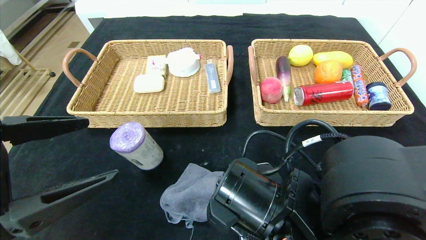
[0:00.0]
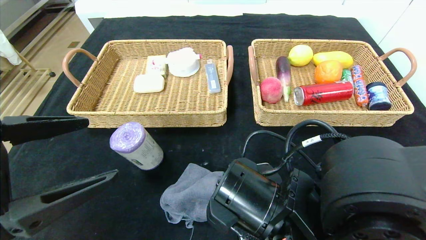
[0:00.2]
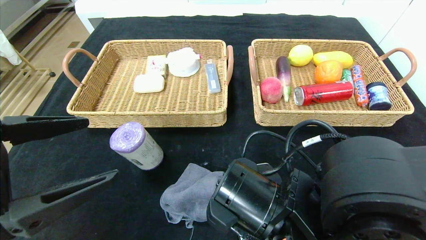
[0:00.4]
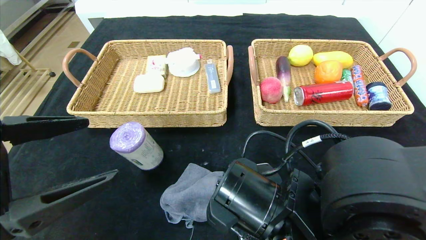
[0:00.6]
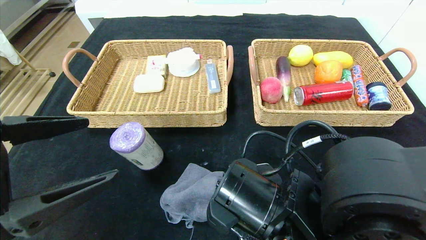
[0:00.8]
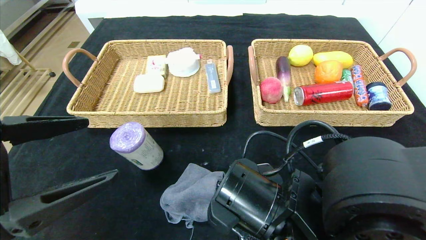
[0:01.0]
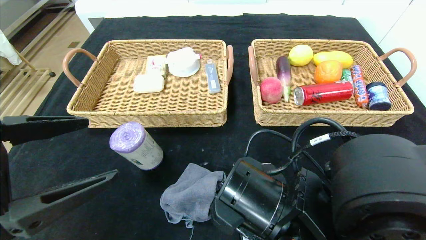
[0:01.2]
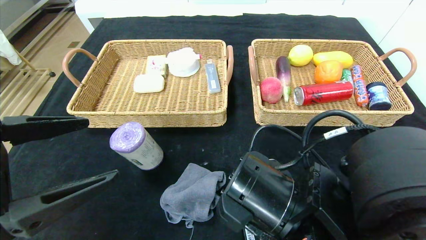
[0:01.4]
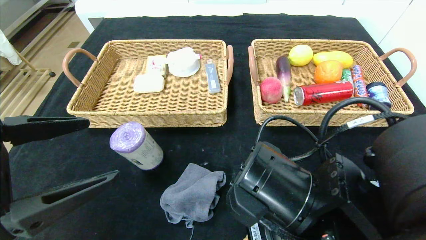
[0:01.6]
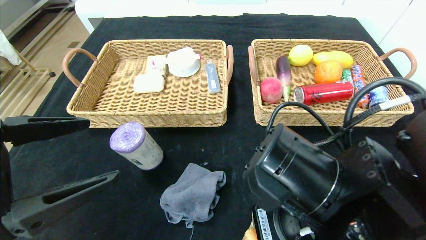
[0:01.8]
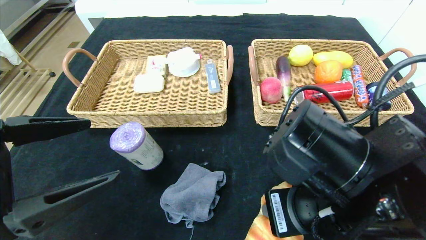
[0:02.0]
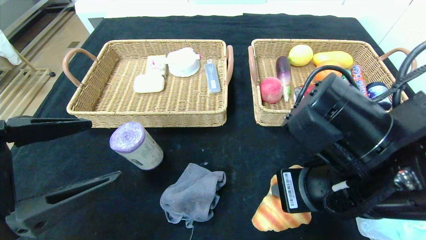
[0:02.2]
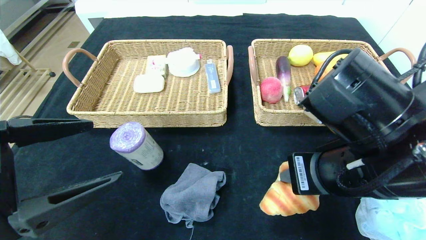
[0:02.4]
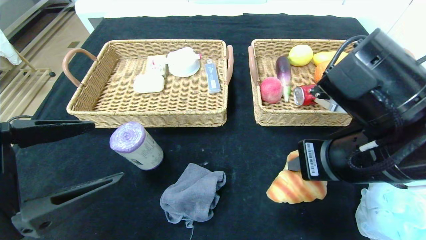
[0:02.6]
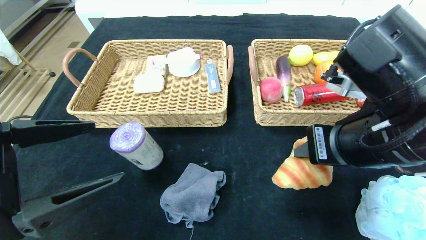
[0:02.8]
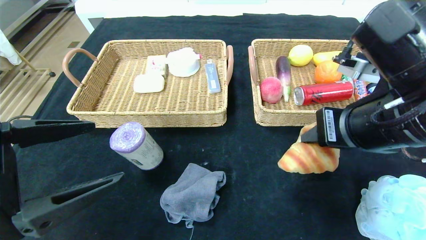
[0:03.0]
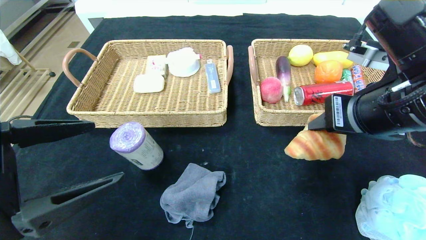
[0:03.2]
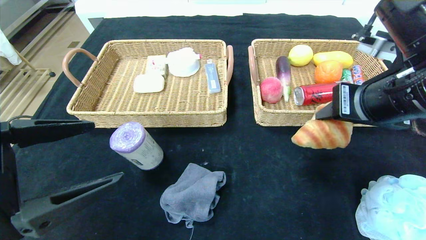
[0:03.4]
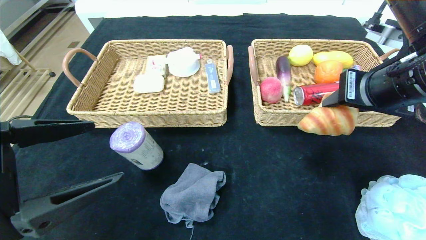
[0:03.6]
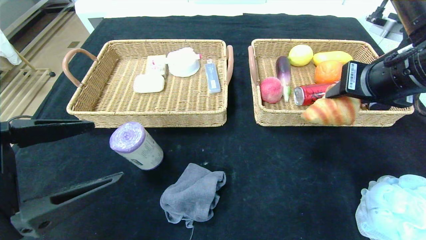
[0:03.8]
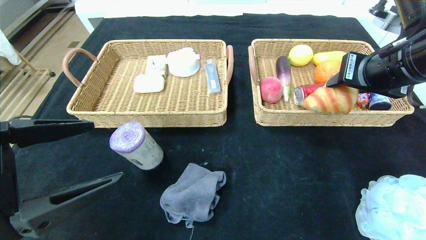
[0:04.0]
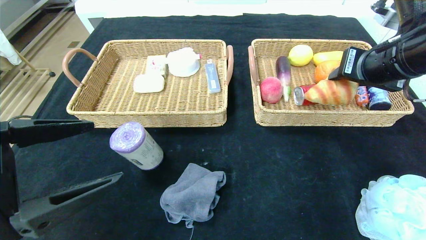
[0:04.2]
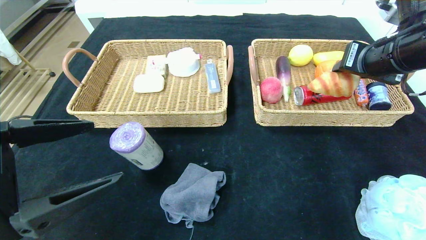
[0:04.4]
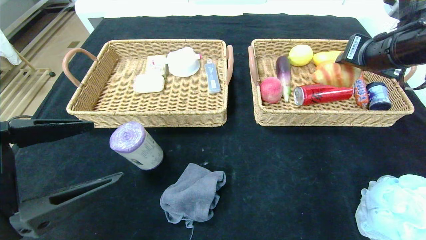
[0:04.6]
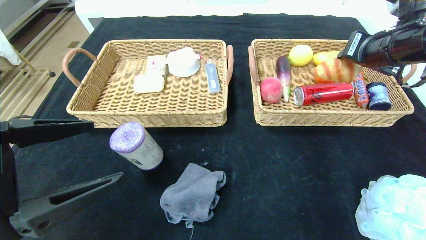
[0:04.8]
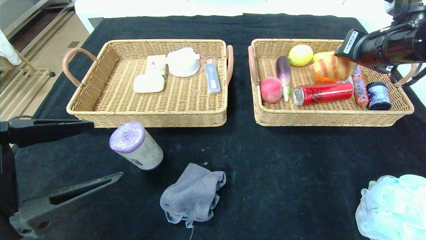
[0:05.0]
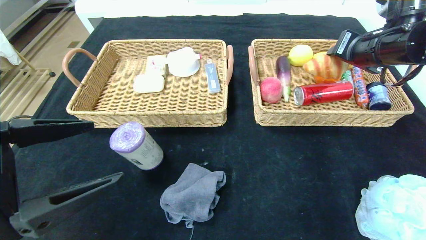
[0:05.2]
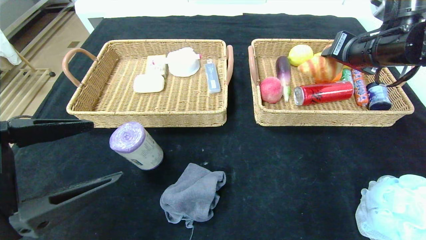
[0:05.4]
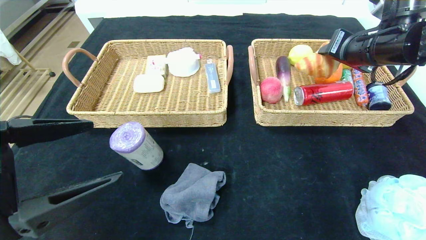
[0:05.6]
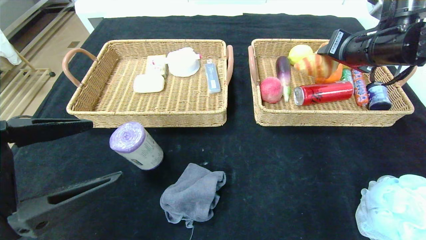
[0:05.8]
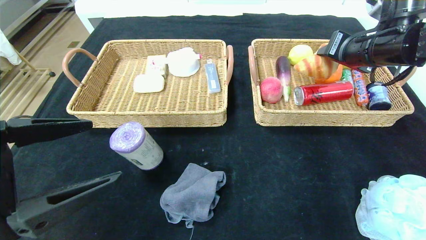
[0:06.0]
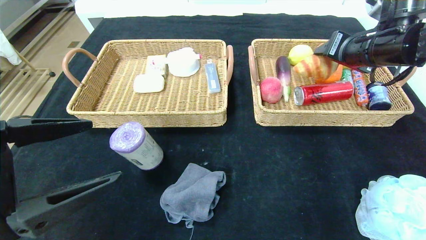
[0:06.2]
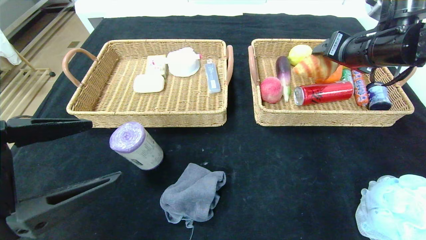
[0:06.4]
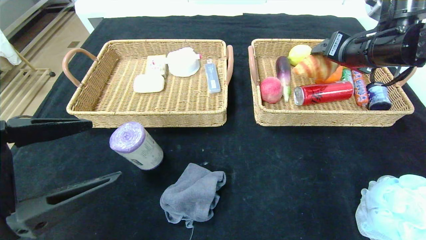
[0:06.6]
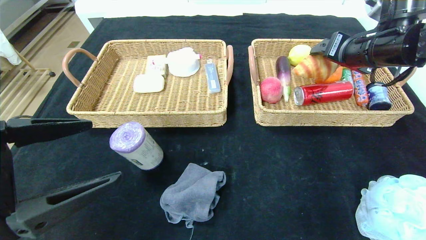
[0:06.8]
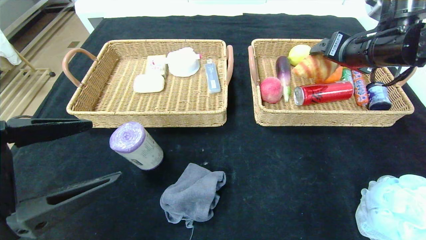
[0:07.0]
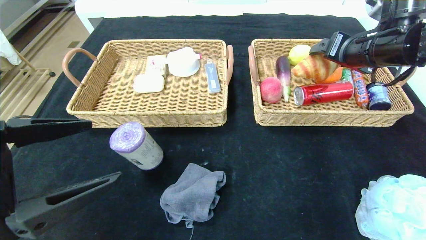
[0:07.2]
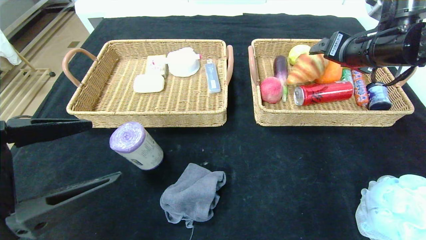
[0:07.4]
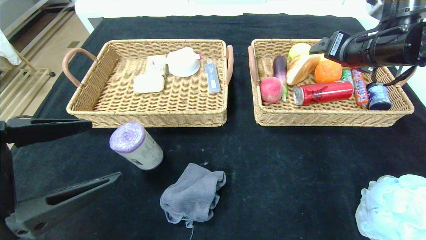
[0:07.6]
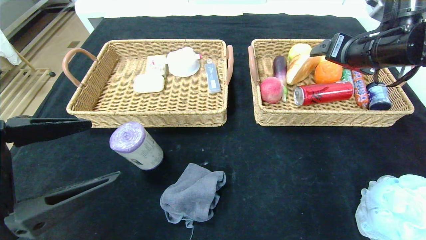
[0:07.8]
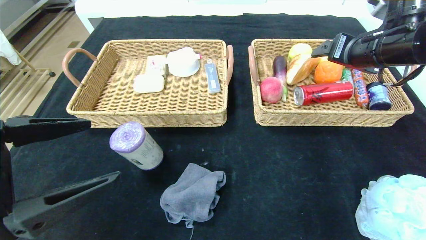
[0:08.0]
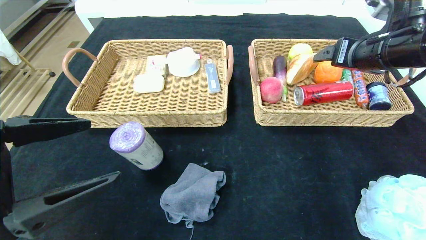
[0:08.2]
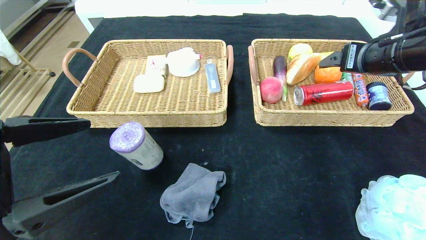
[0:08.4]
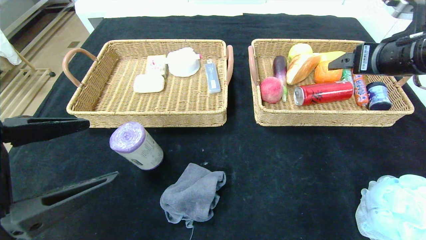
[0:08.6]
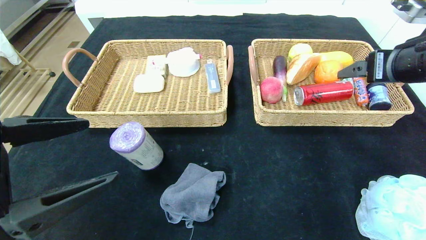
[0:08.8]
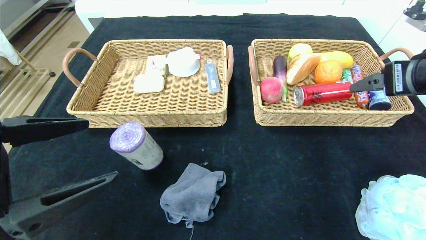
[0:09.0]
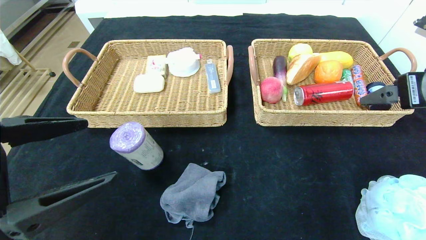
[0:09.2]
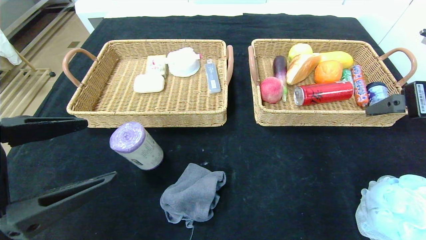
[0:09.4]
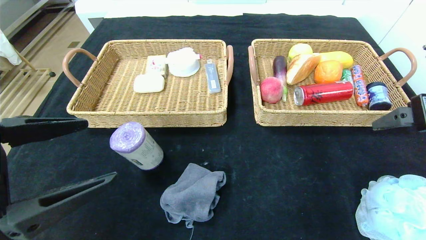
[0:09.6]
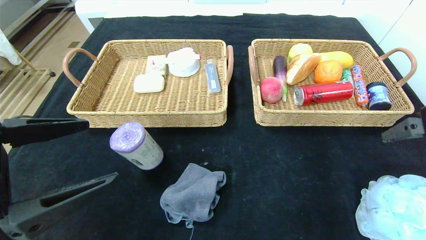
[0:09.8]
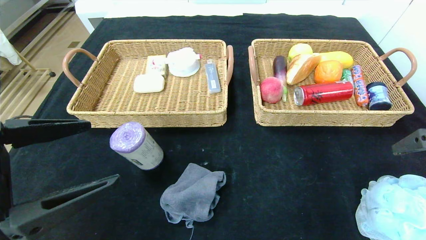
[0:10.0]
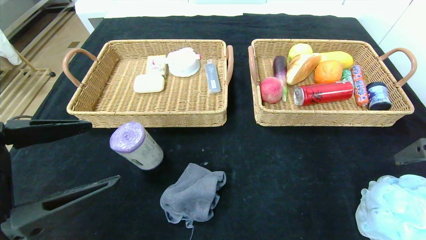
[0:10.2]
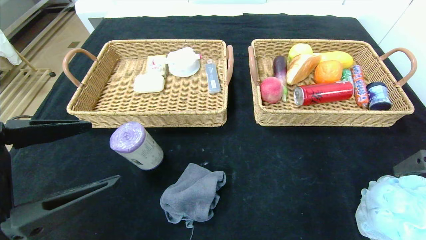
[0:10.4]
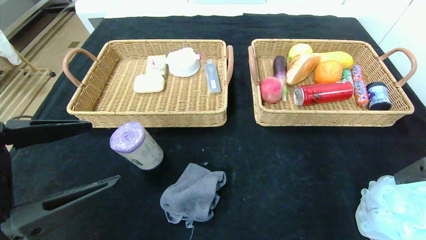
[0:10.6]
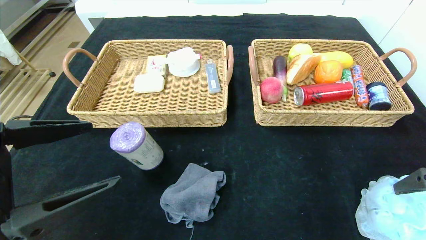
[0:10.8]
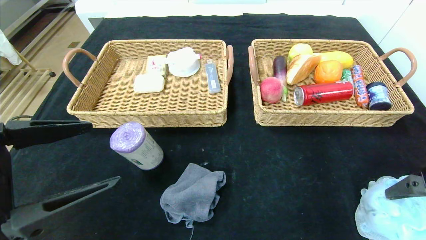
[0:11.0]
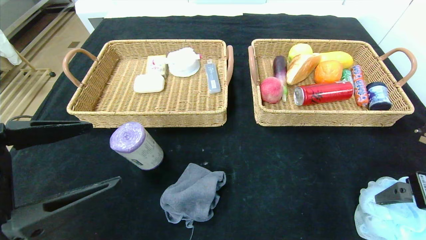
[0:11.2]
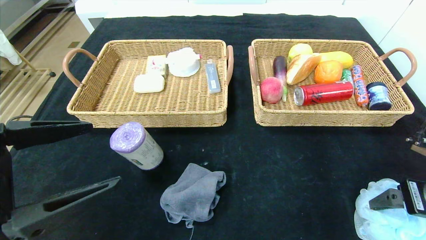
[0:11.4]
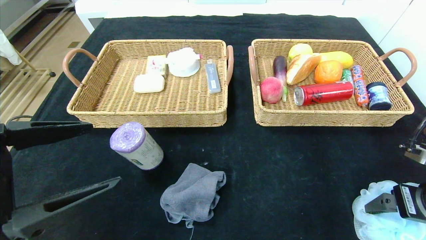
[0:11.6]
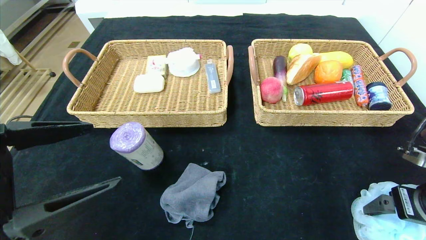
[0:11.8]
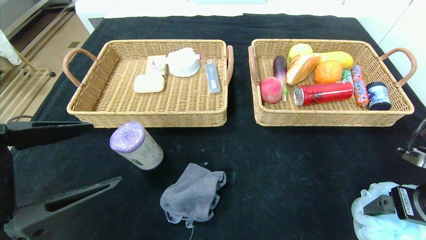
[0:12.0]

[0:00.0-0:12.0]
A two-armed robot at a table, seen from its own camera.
Step, 0:00.0 to 0:07.4: Grasp the croissant and put it in the right basket.
0:00.0 to 0:01.6: The grippers move only a little.
0:01.6 to 0:03.0: The right gripper moves upward and to the right, approximately 15 cm.
0:03.0 to 0:04.4: The right gripper is displaced forward and to the right by roughly 15 cm.
0:04.4 to 0:06.0: The grippers move only a little.
0:06.0 to 0:07.6: The right gripper opens its fingers.
0:07.6 to 0:09.0: The right gripper moves backward, about 10 cm.
0:09.0 to 0:10.4: The right gripper shifts approximately 10 cm backward.
0:10.4 to 0:12.0: The right gripper moves downward, approximately 10 cm.

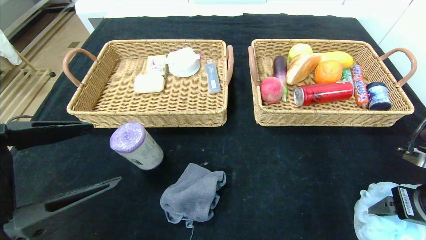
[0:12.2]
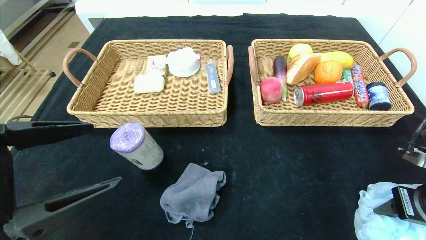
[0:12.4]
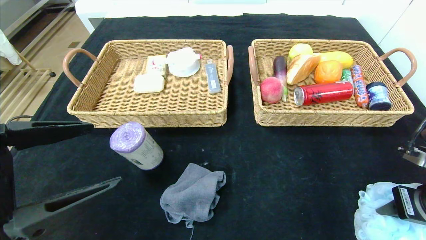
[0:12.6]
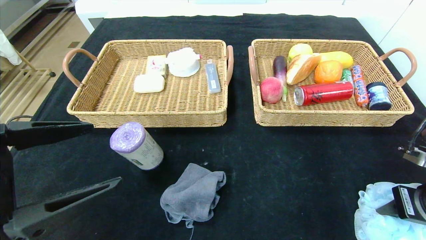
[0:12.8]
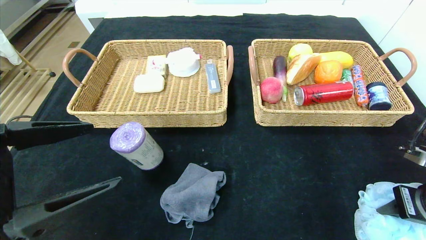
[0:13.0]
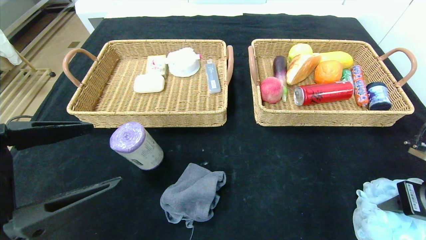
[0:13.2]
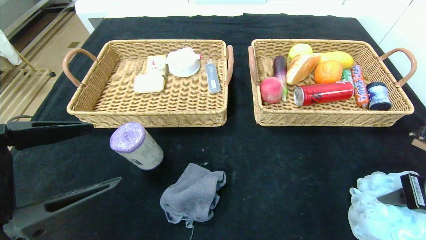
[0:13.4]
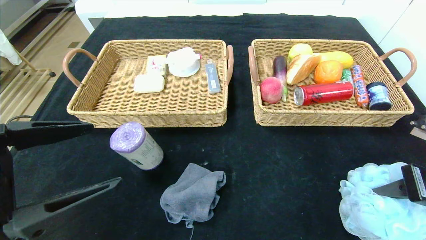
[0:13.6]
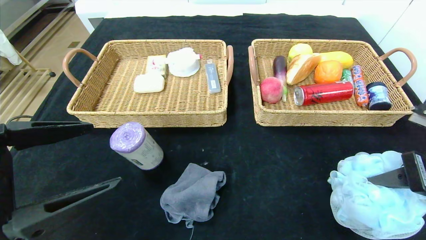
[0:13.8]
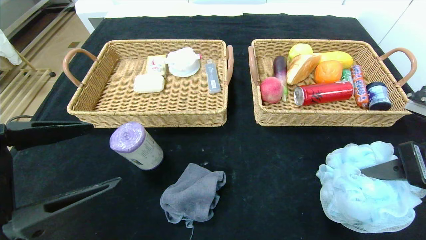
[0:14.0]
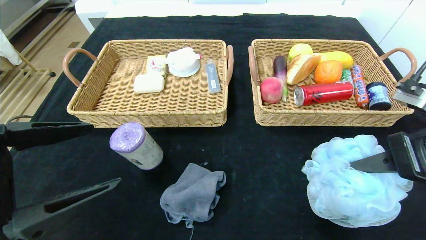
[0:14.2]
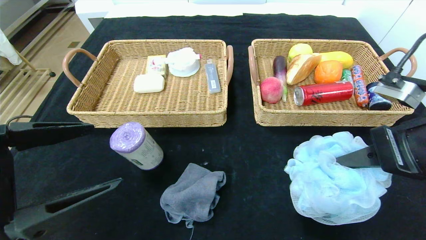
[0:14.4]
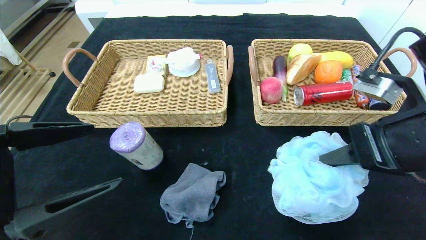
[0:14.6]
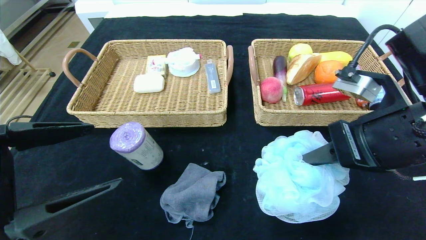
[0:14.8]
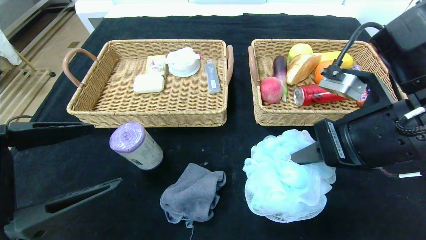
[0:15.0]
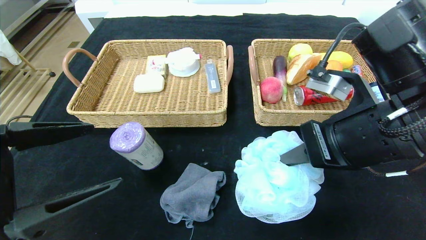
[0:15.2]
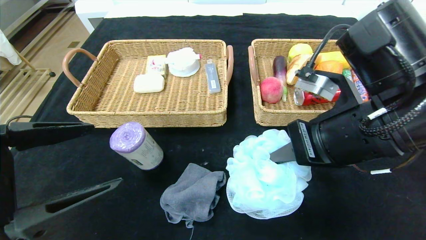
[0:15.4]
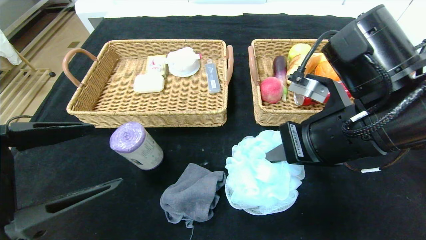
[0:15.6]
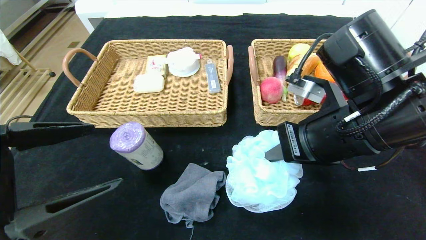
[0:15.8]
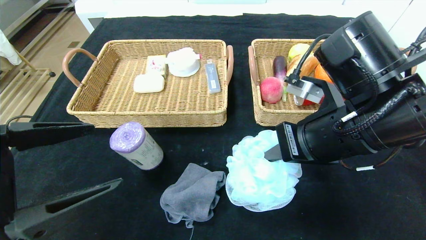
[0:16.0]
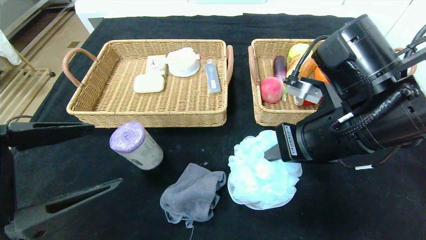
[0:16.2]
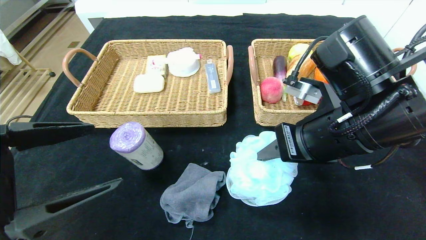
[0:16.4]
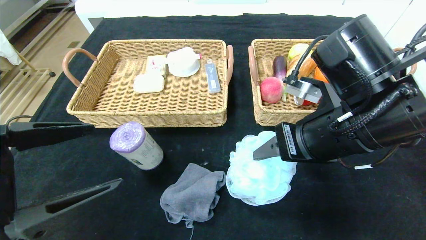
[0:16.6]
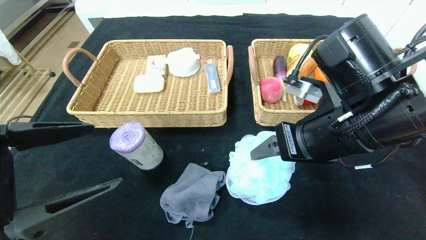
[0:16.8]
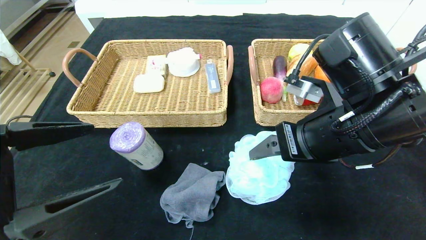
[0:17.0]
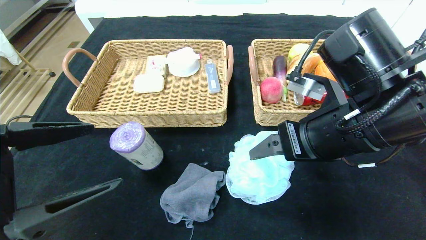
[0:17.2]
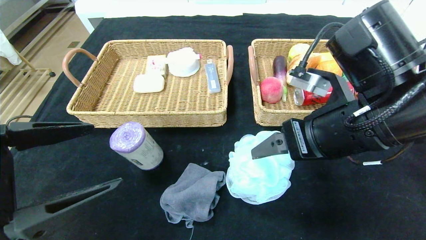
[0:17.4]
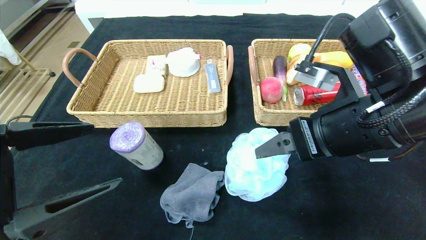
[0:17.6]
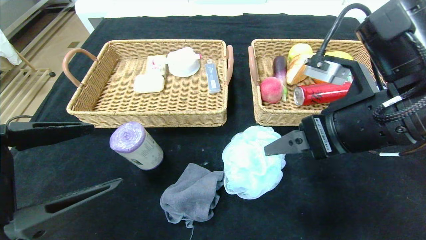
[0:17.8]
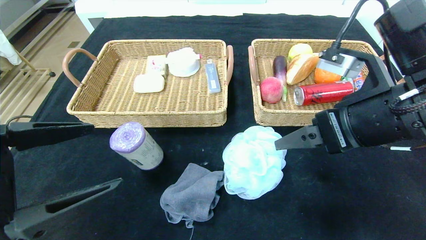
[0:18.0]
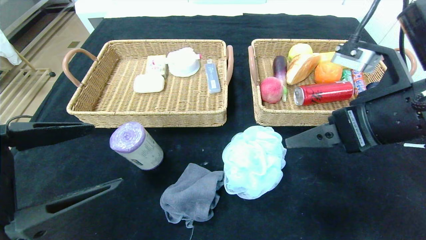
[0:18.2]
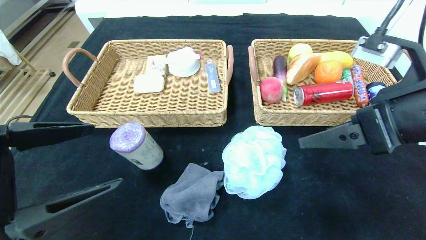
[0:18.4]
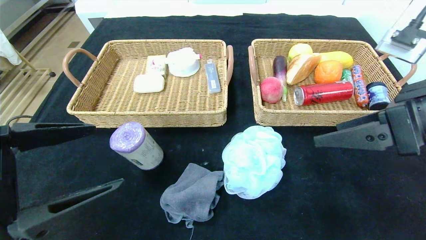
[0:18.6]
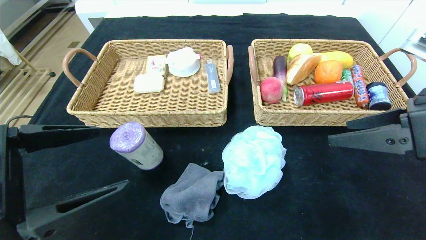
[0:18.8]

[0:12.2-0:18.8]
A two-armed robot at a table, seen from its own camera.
Step, 0:12.2 to 0:17.6: Place the bath ball in the center of the table.
0:12.2 to 0:13.8: The right gripper shifts approximately 5 cm upward, and closes its fingers.
0:13.8 to 0:15.4: The right gripper travels to the left by roughly 15 cm.
0:15.4 to 0:17.2: The right gripper opens.
0:17.2 to 0:18.8: The right gripper shifts approximately 10 cm to the right.
